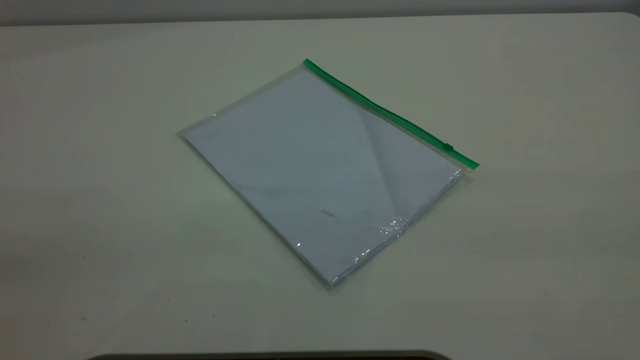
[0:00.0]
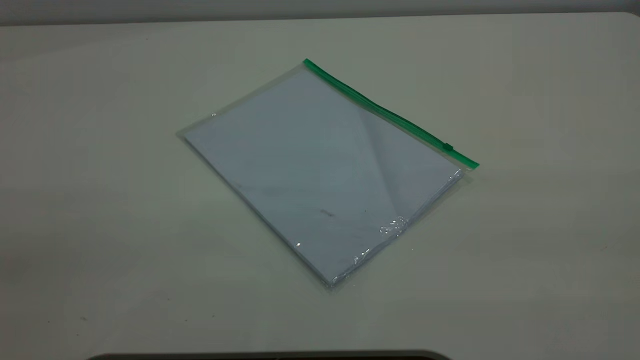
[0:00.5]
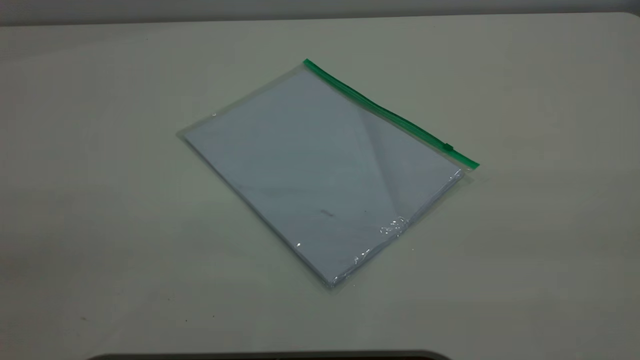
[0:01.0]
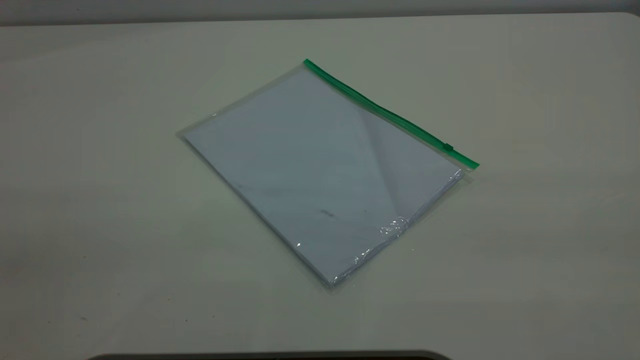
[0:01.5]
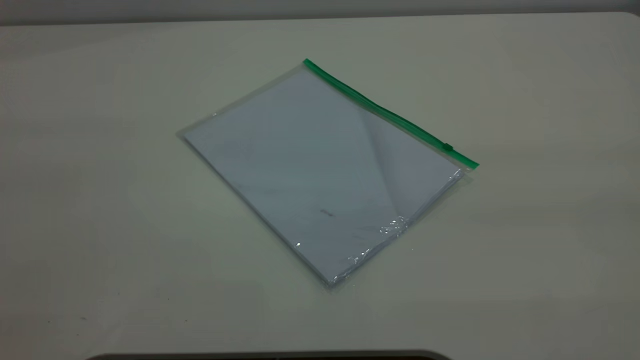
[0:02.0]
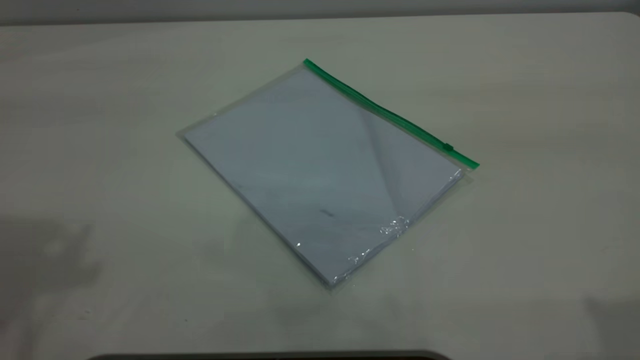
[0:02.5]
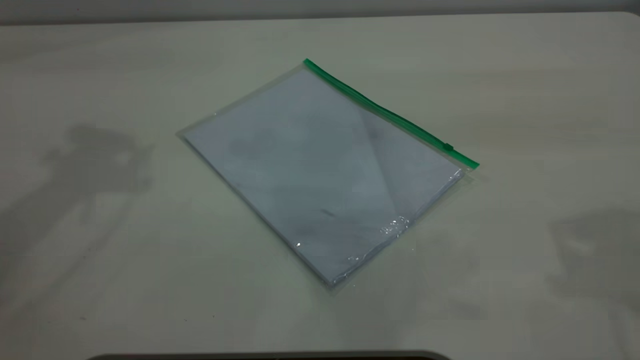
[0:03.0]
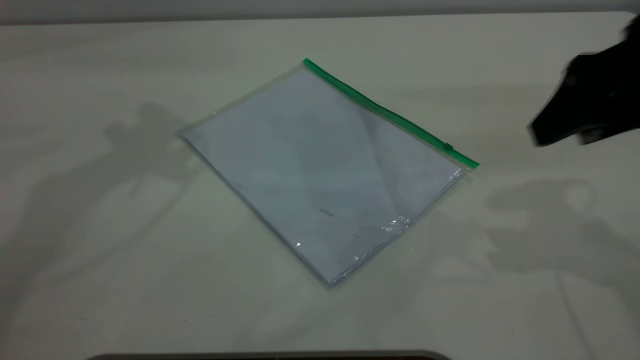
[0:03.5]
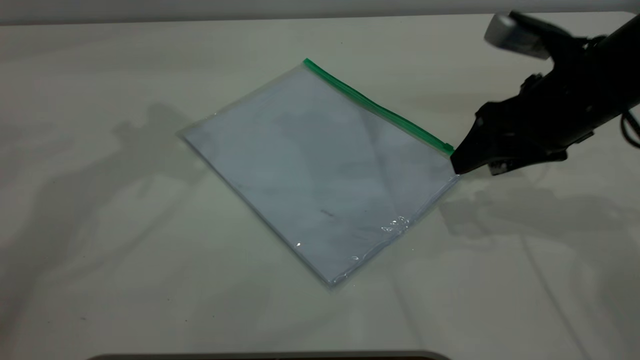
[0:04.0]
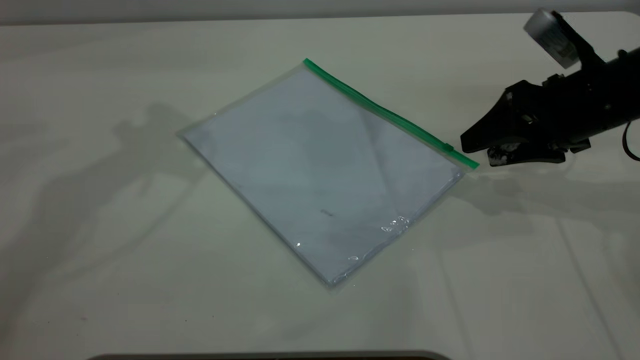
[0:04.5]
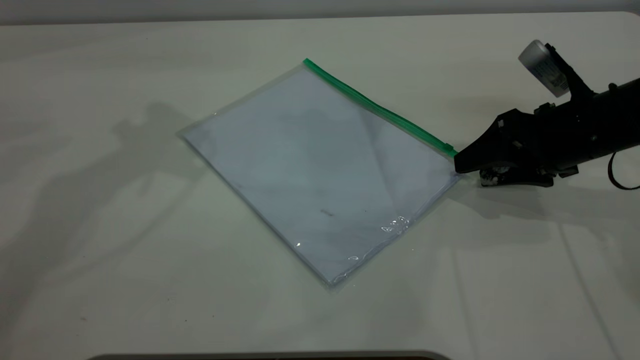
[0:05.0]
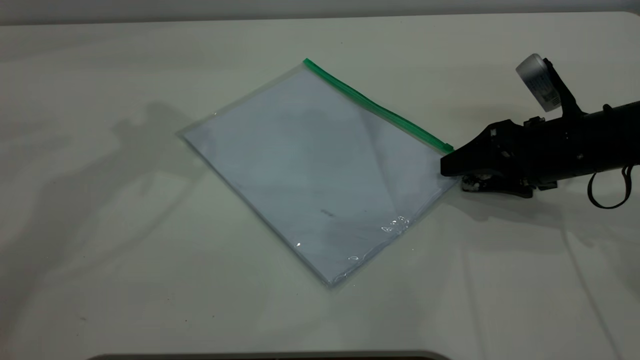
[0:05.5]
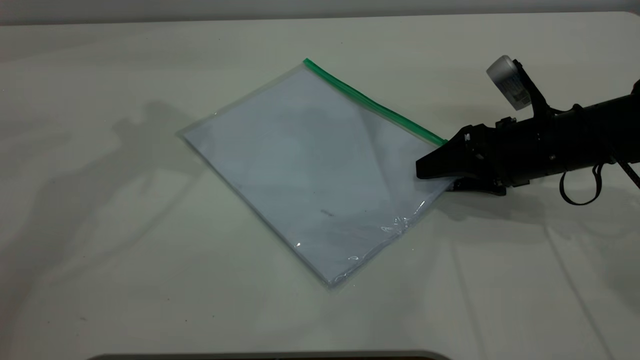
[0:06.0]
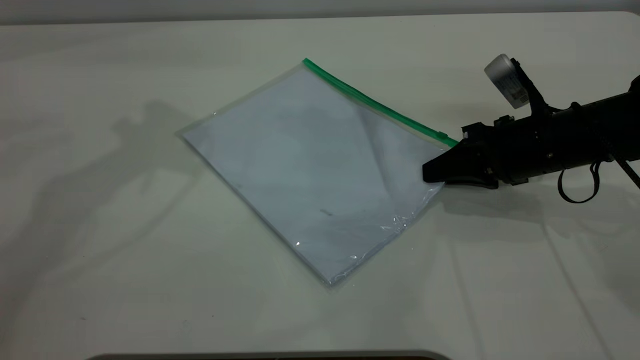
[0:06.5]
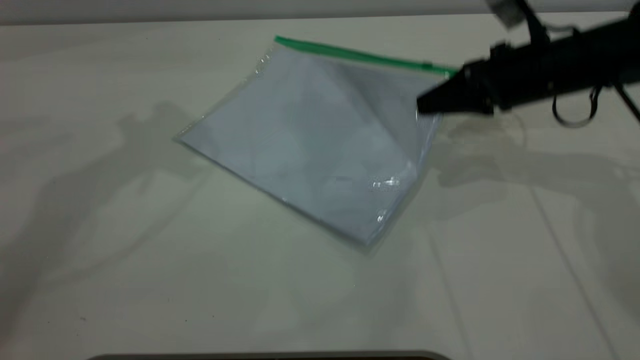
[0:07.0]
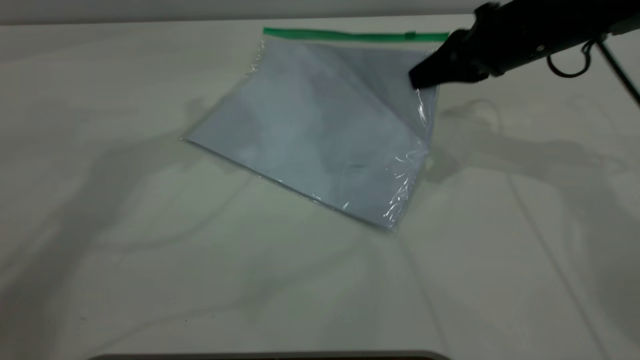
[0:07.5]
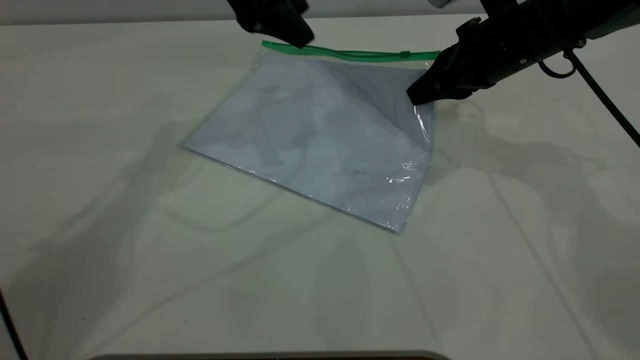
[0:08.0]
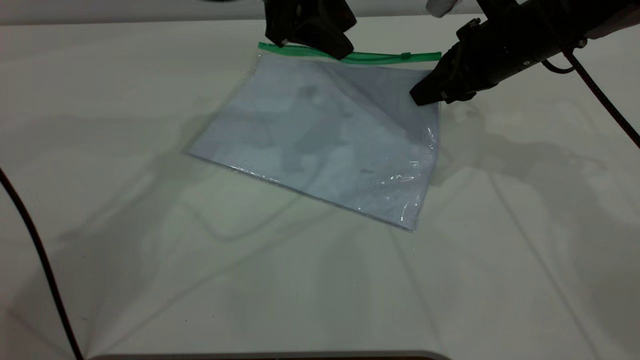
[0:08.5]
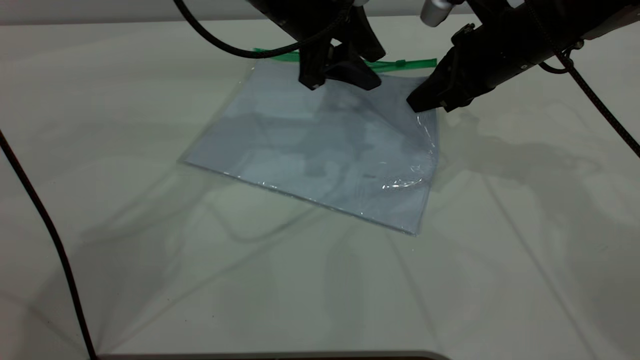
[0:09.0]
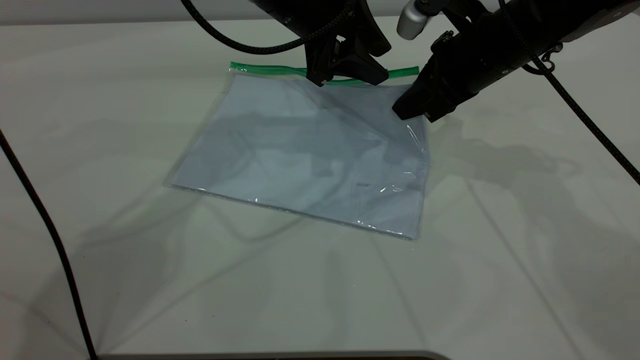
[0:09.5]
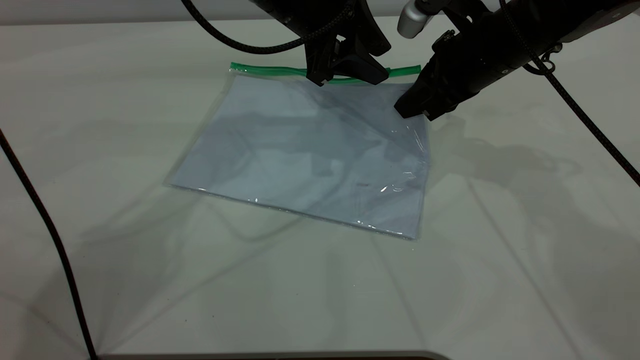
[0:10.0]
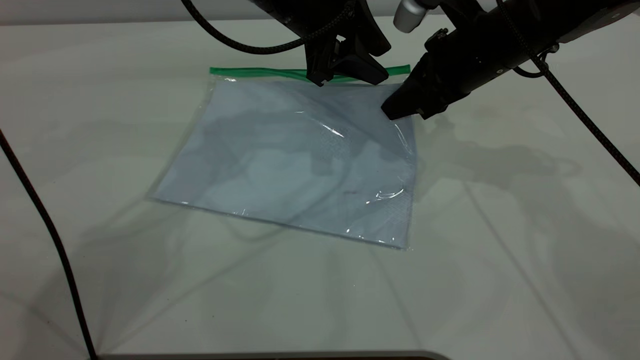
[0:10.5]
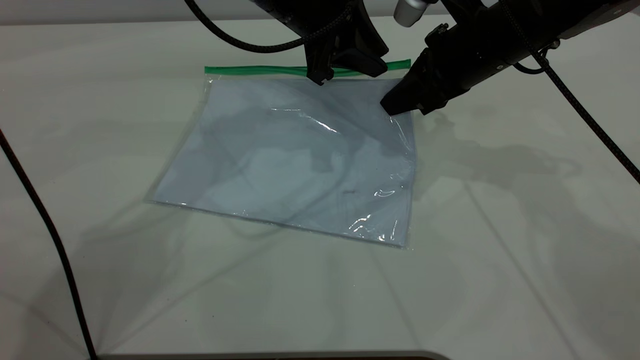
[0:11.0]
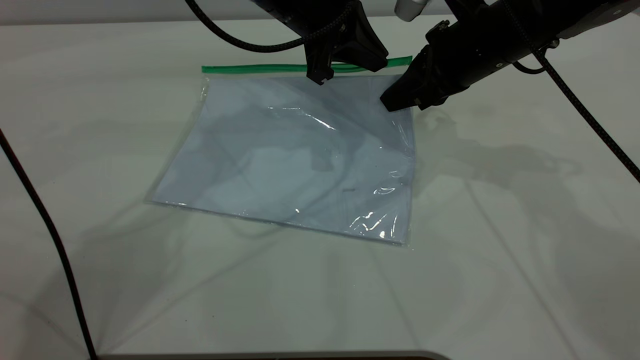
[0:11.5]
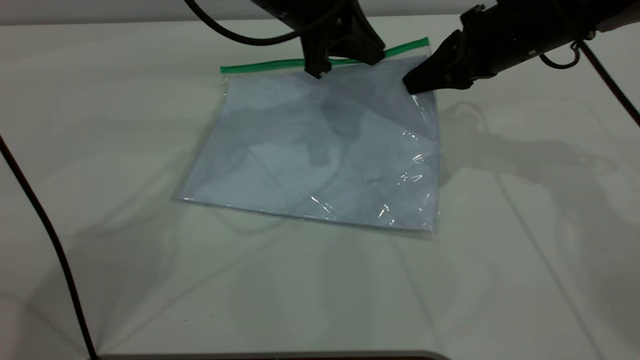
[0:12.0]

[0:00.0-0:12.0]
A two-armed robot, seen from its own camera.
Step, 0:00.0 to 0:07.5: Pick up the transparent plastic bag with the right gripper.
0:02.0 to 0:04.0: The right gripper travels forward and downward by approximately 40 cm.
0:04.0 to 0:06.0: The right gripper moves downward, about 10 cm.
0:06.0 to 0:08.0: The left gripper is displaced to the right, downward and forward by some 20 cm. Meanwhile the right gripper heads upward and forward, covering approximately 10 cm, and closes up.
0:08.0 to 0:10.0: The left gripper goes some 5 cm to the right.
0:10.0 to 0:12.0: The left gripper closes its fingers.

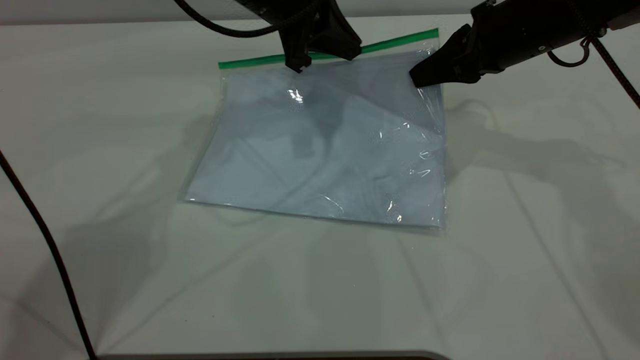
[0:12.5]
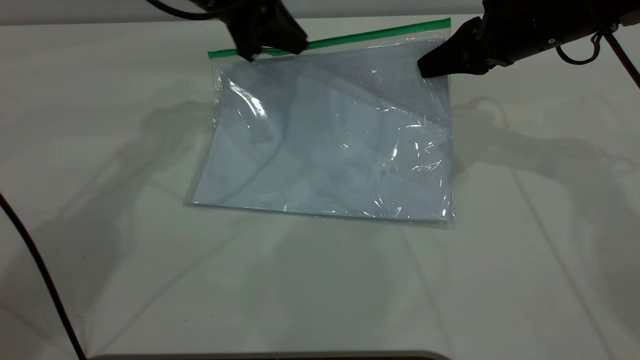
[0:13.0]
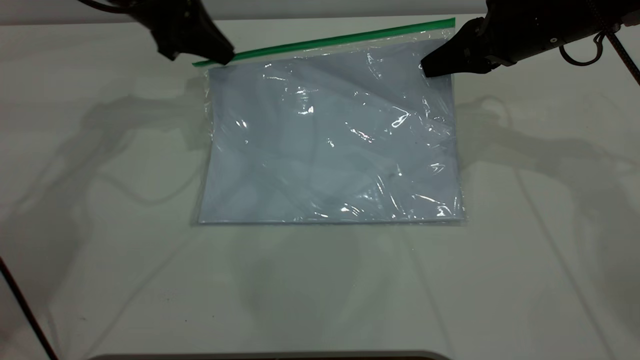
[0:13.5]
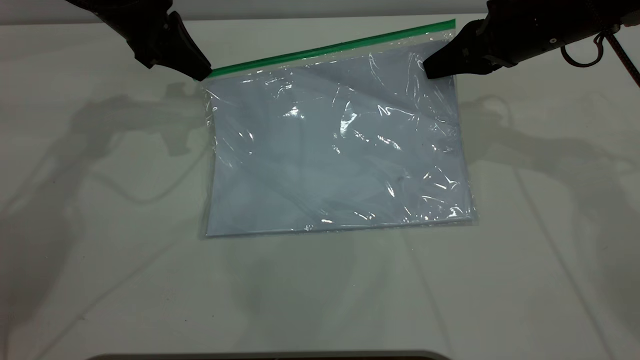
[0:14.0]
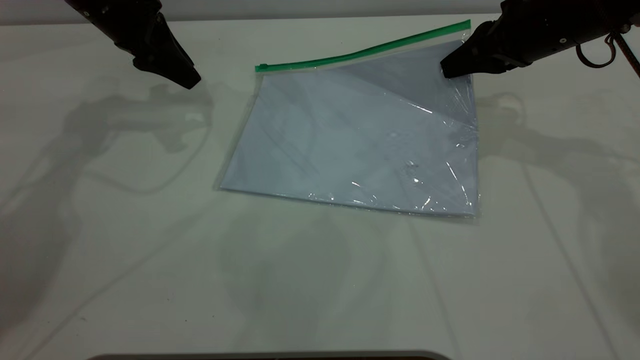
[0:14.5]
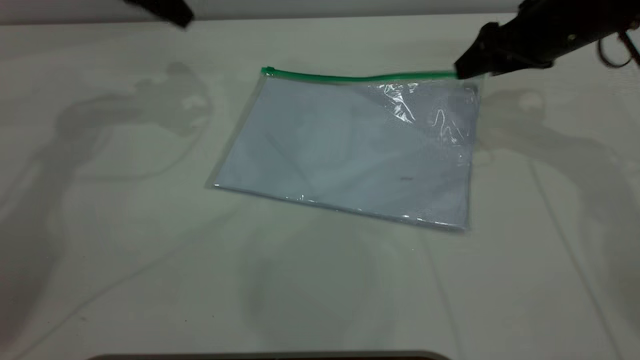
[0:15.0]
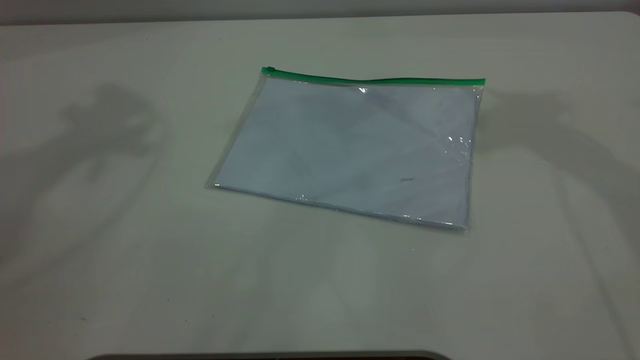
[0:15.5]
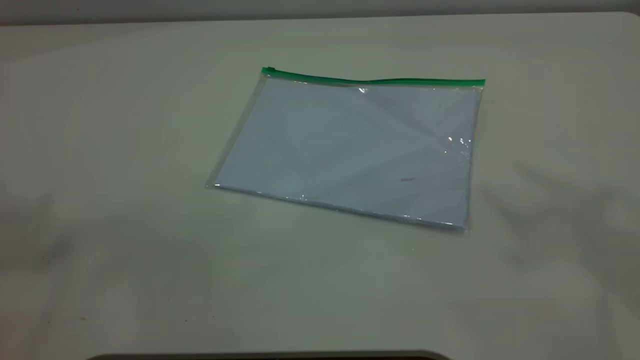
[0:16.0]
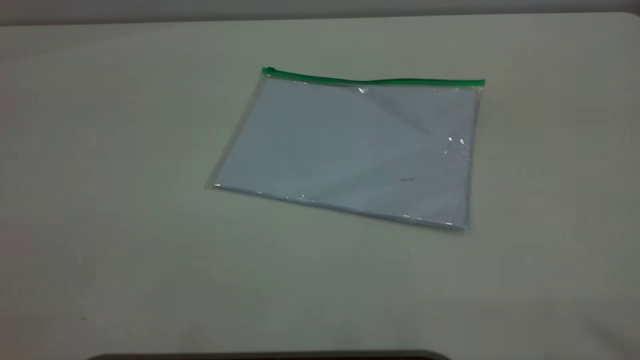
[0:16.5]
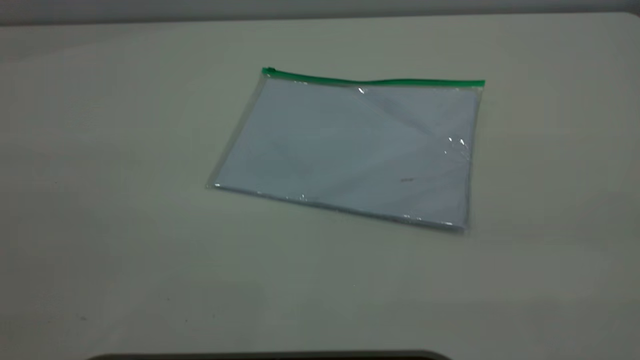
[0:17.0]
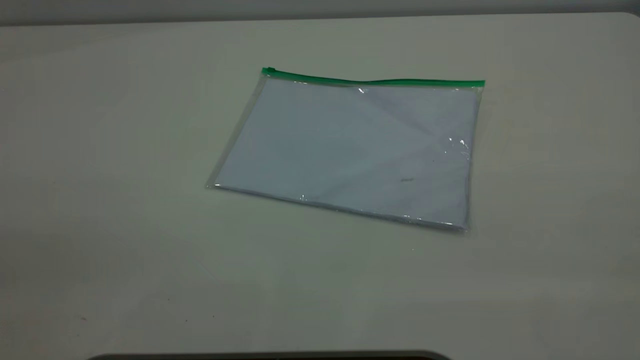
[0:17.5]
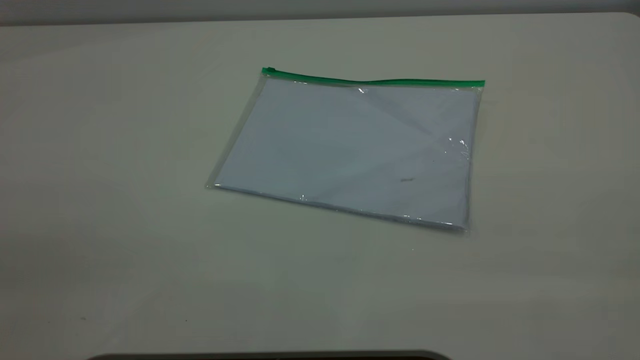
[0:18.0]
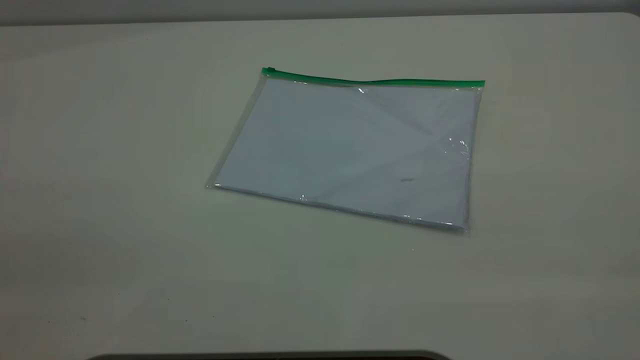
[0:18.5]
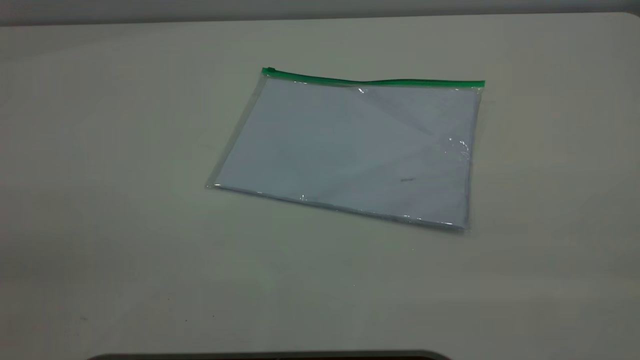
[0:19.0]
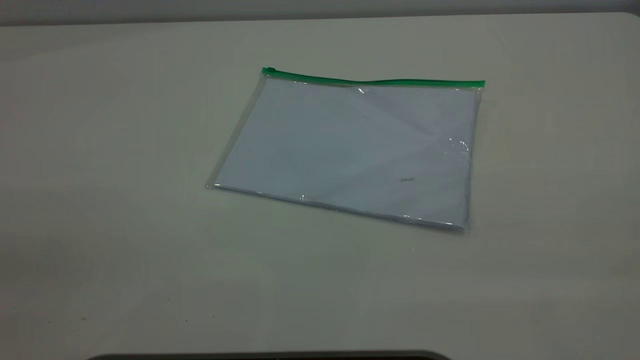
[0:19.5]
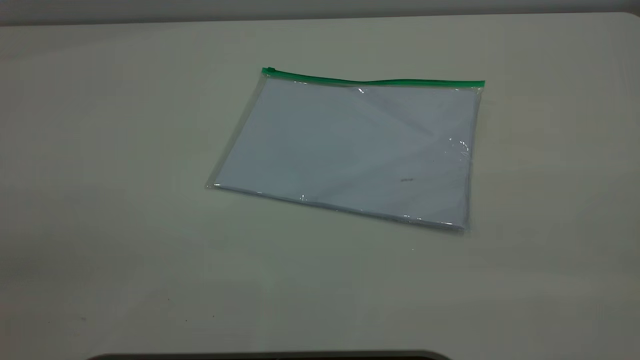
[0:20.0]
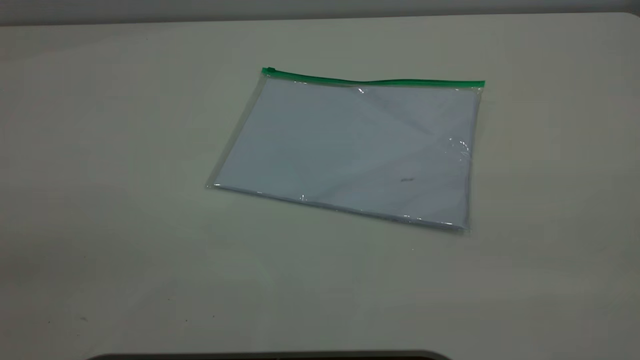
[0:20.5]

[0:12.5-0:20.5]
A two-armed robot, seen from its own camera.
Step, 0:14.5 to 0:15.5: Place the transparent plastic bag.
0:12.5 to 0:14.5: The left gripper shifts about 15 cm to the left, and opens its fingers.
0:14.5 to 0:16.5: The left gripper heads backward and upward, covering approximately 60 cm. The right gripper travels upward and backward by approximately 50 cm, and opens its fingers.
